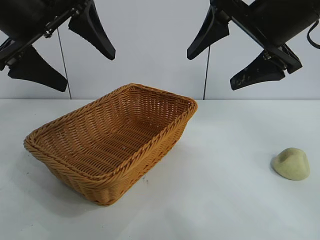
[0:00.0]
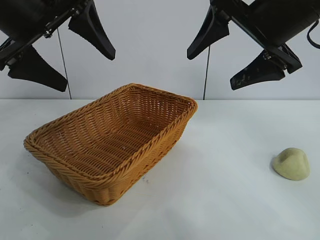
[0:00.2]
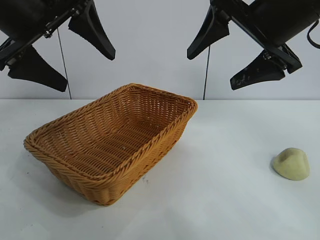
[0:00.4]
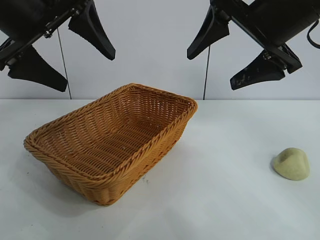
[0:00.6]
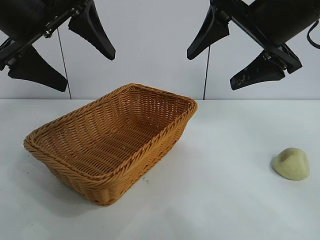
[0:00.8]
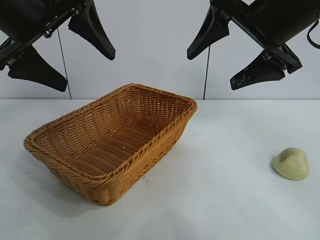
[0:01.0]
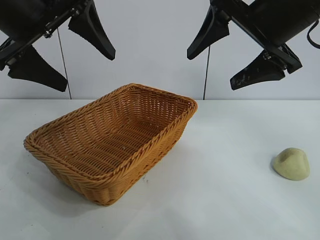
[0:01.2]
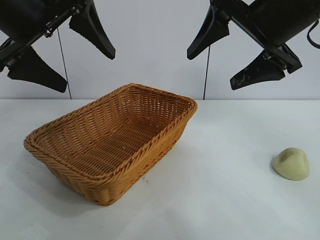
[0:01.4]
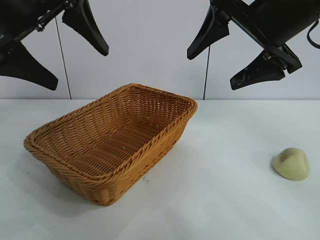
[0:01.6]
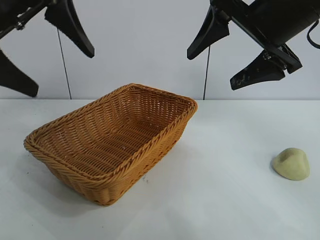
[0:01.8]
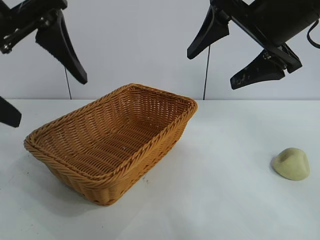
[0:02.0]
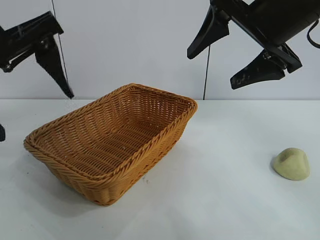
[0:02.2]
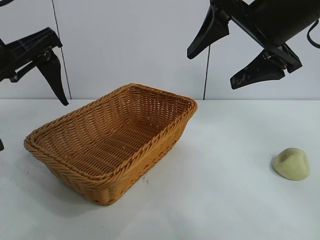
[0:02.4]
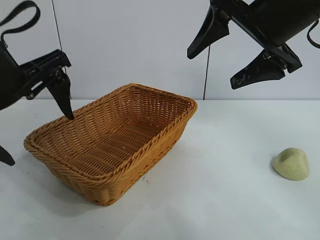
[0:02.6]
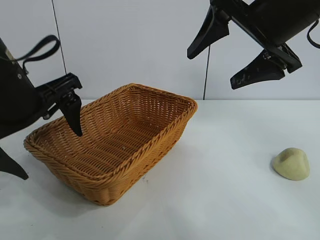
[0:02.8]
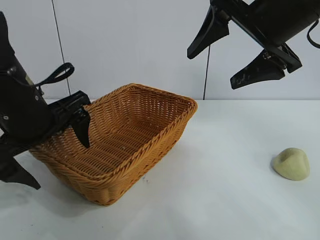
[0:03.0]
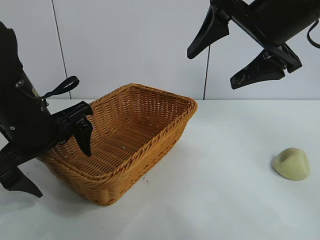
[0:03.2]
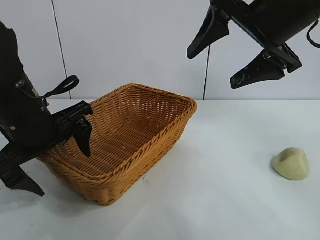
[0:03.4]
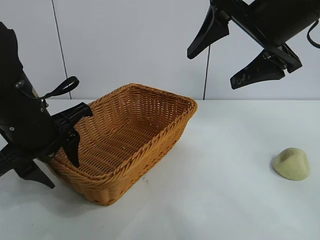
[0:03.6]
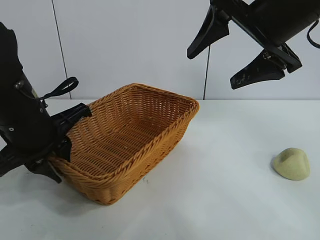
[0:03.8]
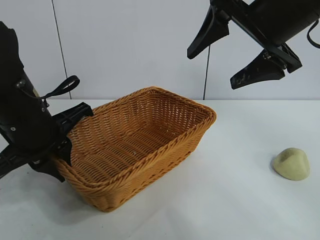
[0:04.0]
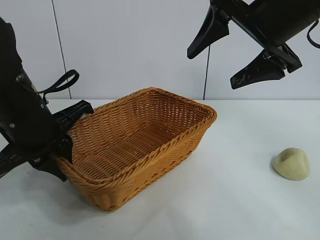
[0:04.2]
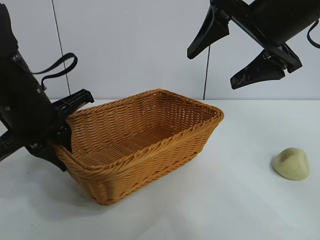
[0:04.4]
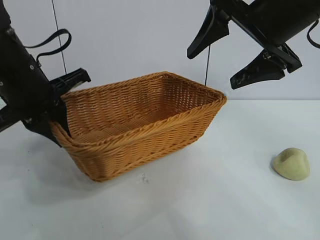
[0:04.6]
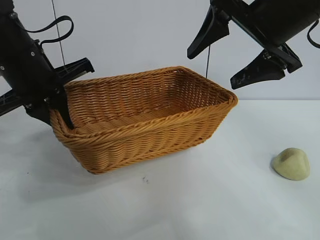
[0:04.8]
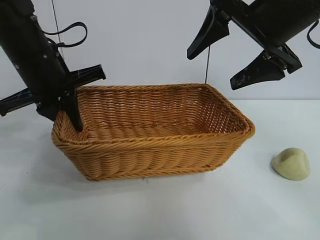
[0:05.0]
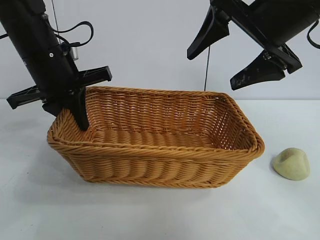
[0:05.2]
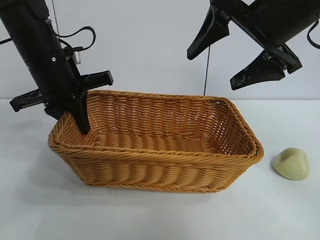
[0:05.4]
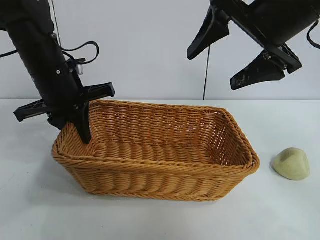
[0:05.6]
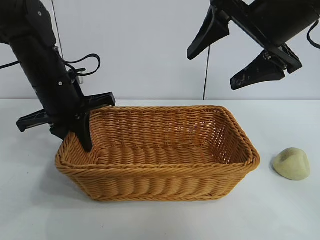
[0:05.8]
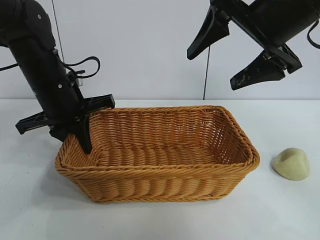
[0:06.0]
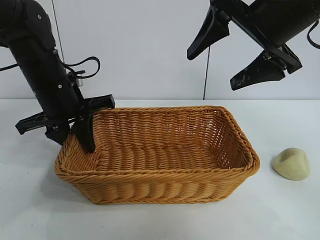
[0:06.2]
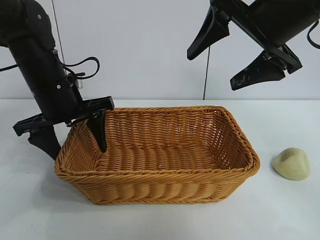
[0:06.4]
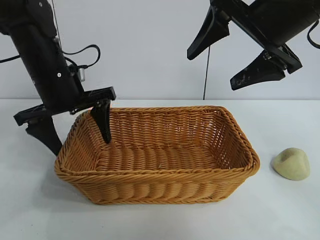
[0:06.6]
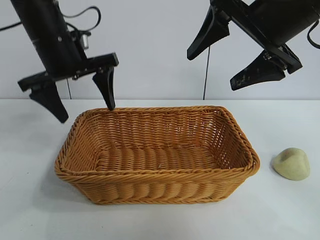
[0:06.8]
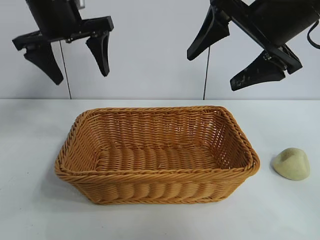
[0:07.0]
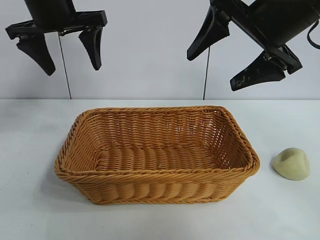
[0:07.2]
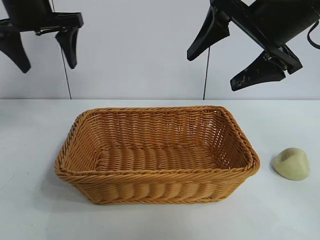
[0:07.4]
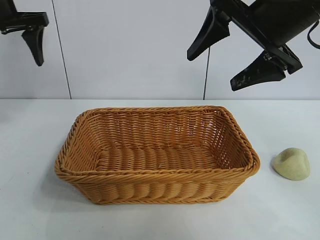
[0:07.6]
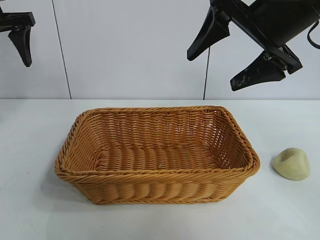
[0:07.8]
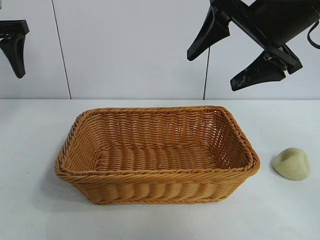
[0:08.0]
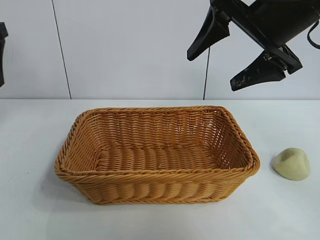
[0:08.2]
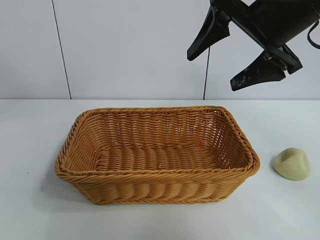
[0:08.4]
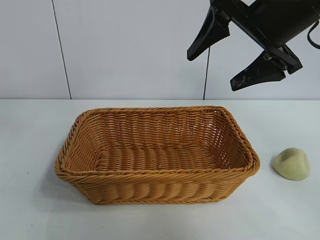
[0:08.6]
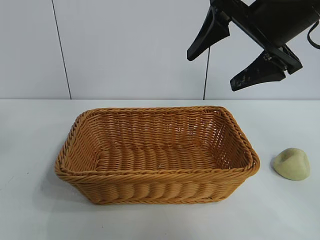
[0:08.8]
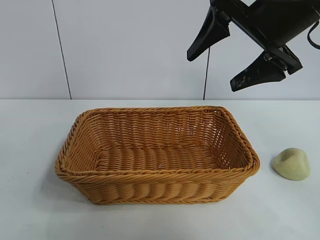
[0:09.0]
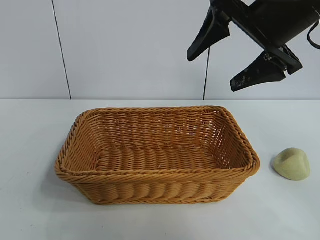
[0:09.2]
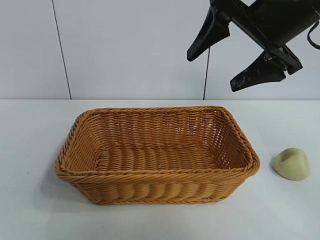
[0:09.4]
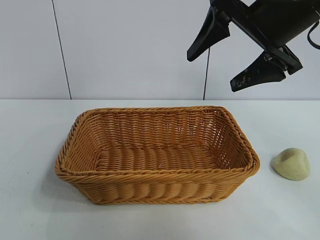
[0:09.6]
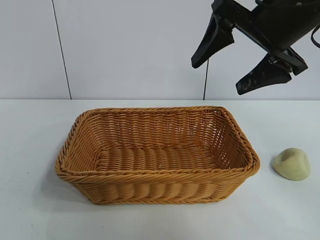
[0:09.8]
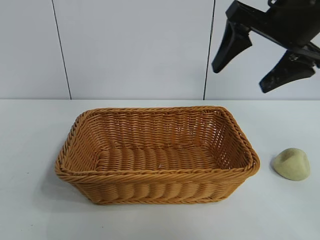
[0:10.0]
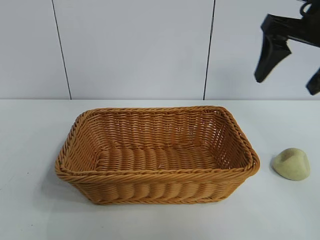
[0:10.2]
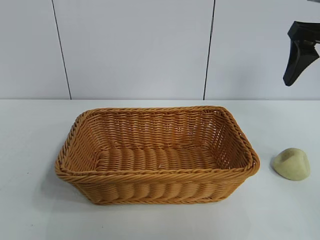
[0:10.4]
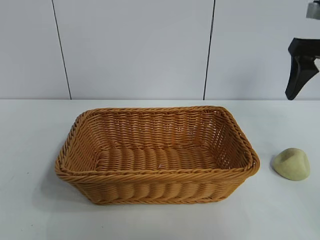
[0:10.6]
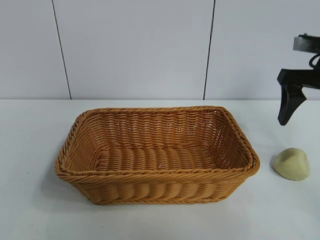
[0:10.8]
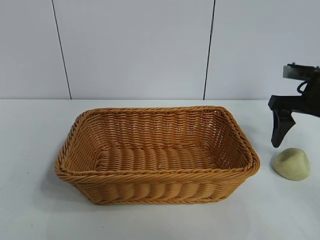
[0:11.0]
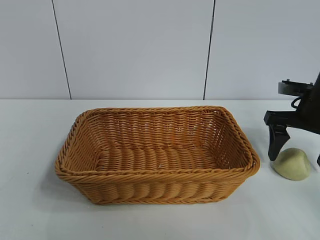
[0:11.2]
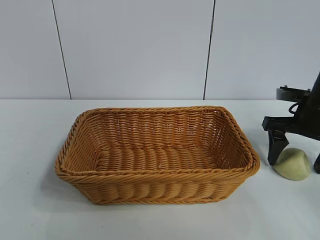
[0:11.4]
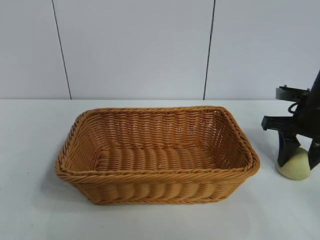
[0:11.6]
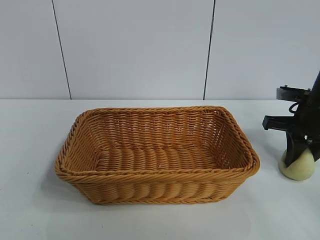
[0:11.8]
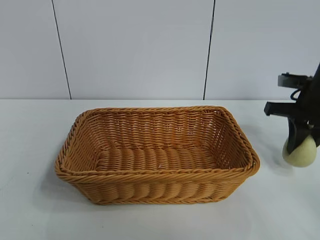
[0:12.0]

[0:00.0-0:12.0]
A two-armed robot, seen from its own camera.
Task of the whole recording: pick up the egg yolk pastry and put it into the basket.
Step, 0:01.4 to 0:03.8: Grasp the basket with left gripper.
Step, 0:04.2 to 0:06.4: Place the basket in the center of view with left gripper.
Step, 0:06.6 to 0:11.6: Grasp egg yolk pastry with right gripper.

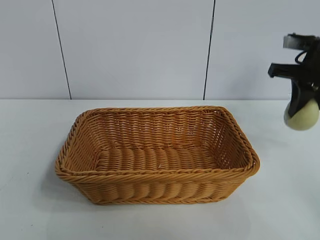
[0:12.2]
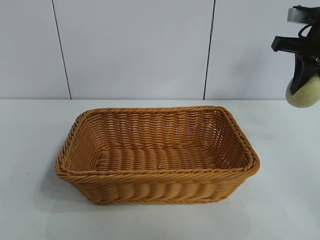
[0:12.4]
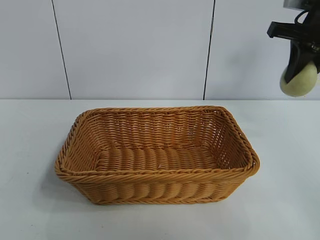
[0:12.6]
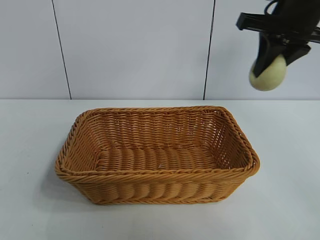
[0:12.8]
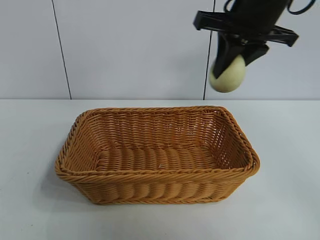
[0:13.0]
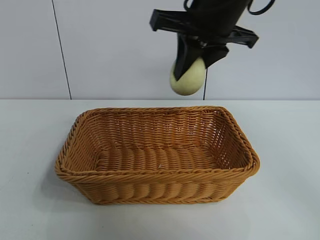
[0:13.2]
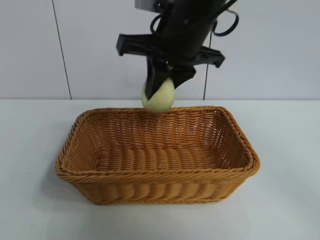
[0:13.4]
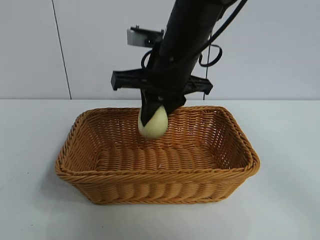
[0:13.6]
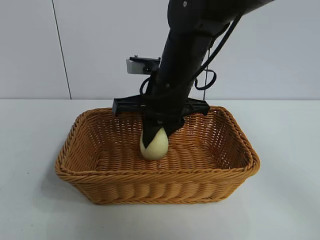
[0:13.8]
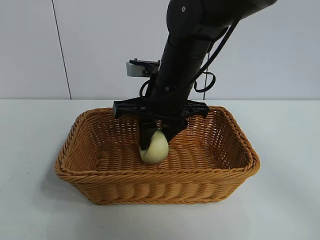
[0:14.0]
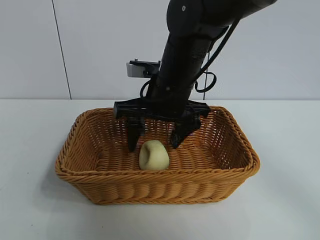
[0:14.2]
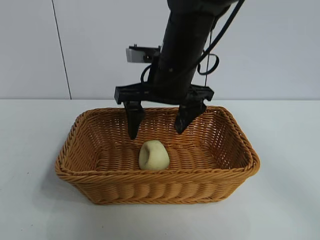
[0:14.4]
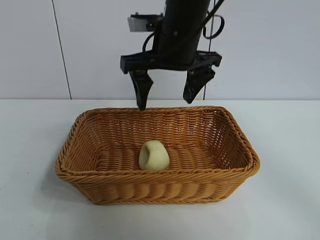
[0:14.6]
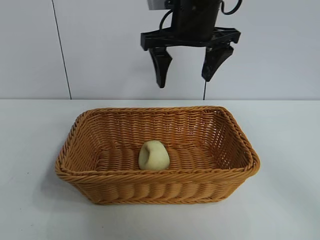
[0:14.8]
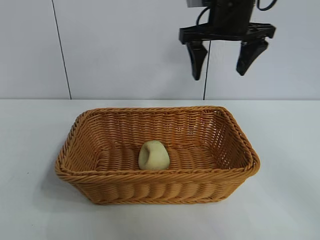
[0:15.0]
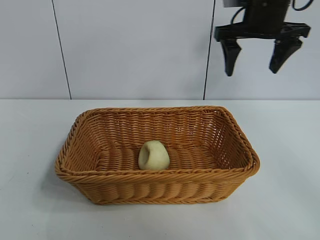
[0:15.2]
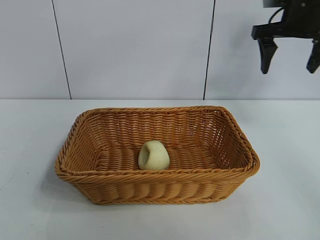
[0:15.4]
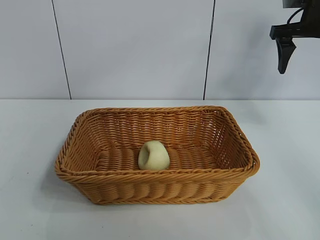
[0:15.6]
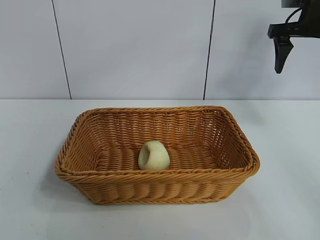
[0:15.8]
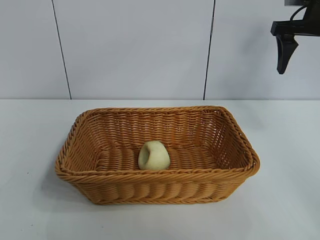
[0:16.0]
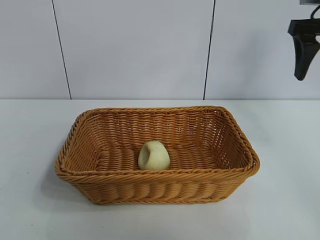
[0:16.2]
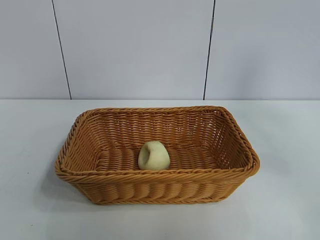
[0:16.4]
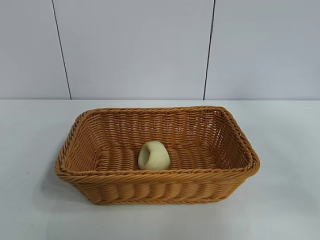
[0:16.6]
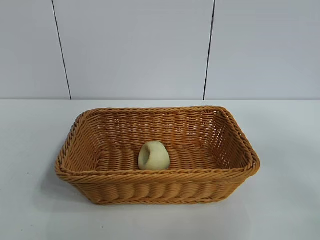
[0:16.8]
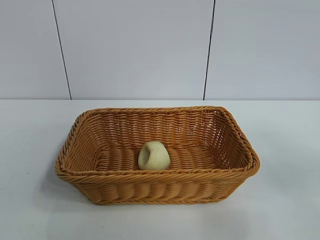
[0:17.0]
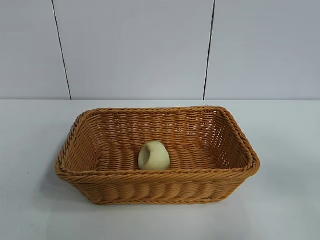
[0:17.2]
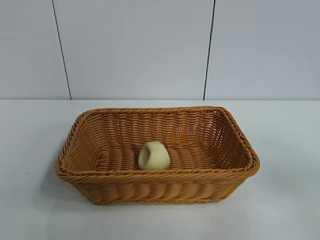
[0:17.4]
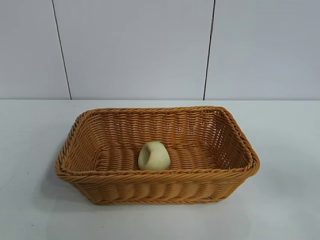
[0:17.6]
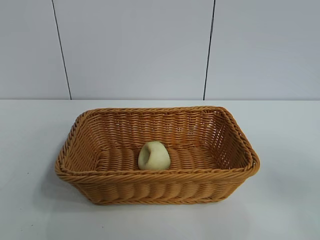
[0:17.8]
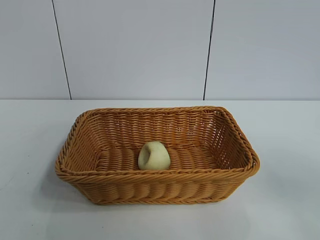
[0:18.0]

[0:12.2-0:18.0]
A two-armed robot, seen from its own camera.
Task of the whole recording: pick up the egg yolk pastry and put it into the basket.
Step, 0:12.2 to 0:14.2: Place the egg yolk pastry in the basket with right gripper.

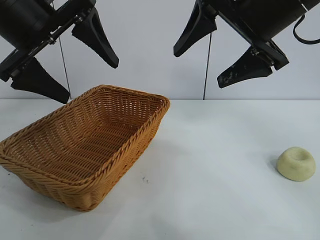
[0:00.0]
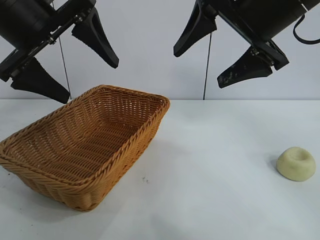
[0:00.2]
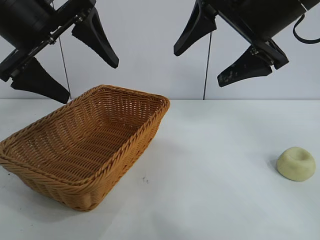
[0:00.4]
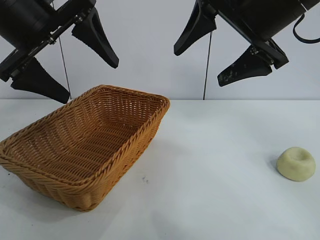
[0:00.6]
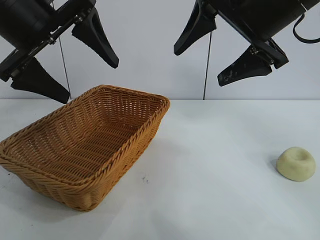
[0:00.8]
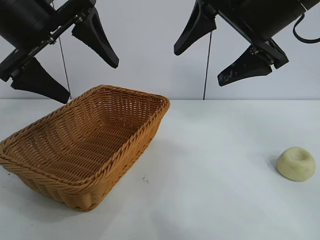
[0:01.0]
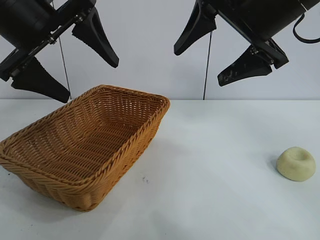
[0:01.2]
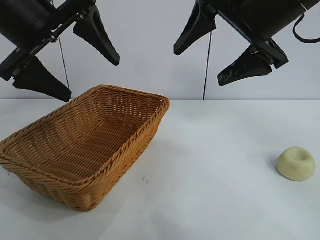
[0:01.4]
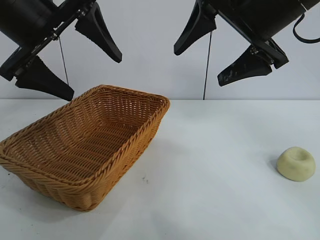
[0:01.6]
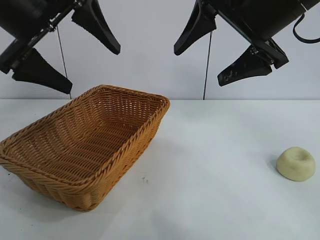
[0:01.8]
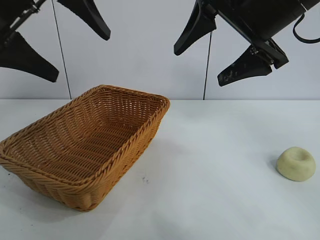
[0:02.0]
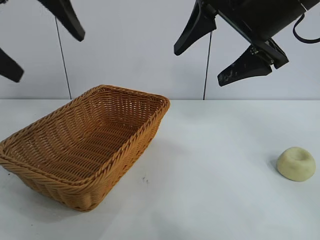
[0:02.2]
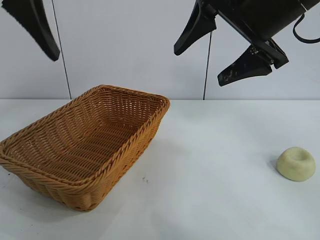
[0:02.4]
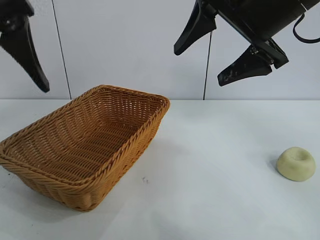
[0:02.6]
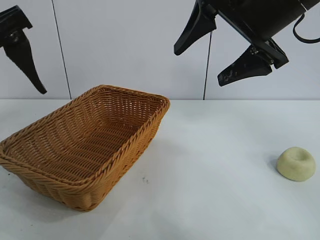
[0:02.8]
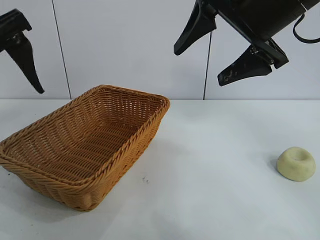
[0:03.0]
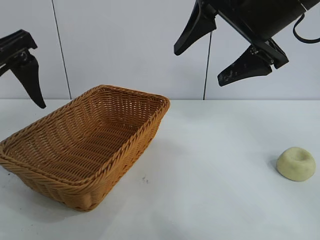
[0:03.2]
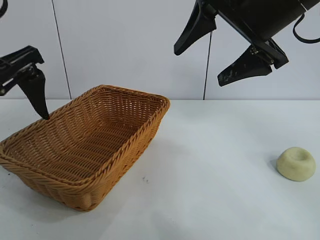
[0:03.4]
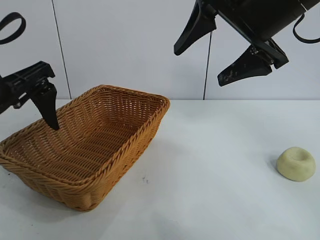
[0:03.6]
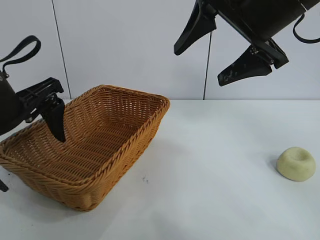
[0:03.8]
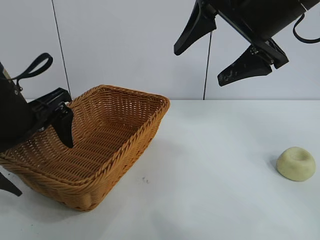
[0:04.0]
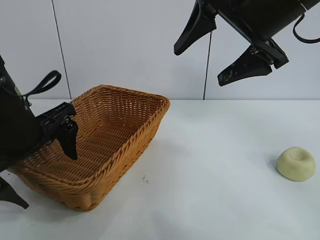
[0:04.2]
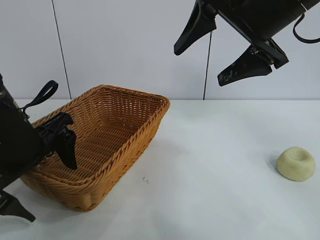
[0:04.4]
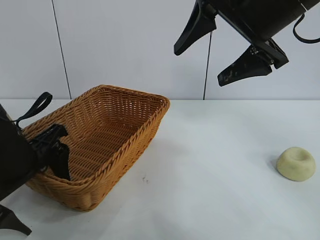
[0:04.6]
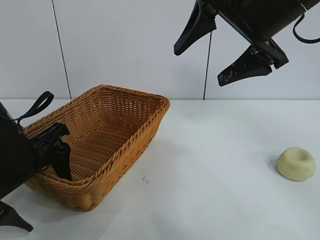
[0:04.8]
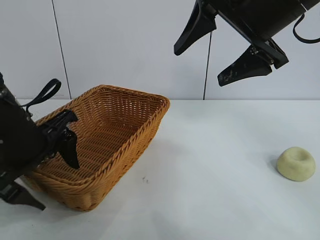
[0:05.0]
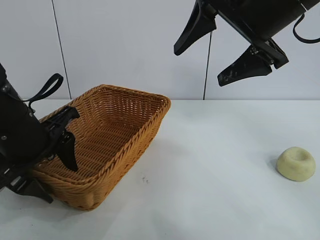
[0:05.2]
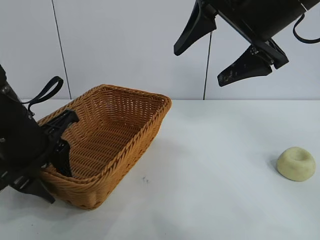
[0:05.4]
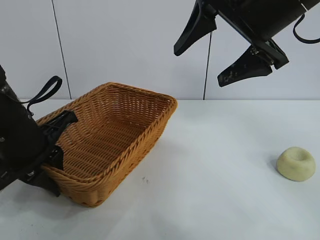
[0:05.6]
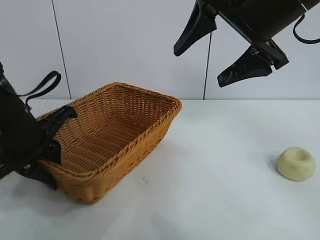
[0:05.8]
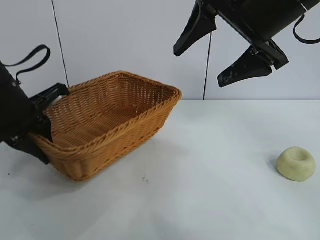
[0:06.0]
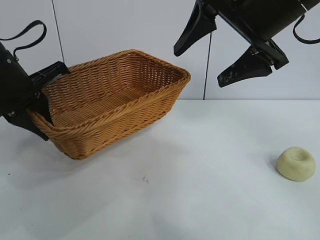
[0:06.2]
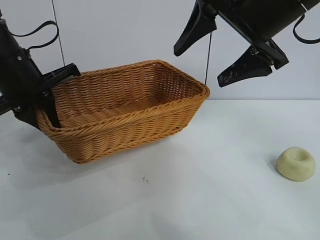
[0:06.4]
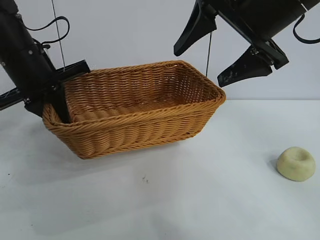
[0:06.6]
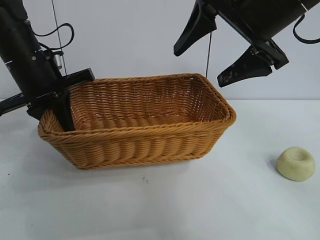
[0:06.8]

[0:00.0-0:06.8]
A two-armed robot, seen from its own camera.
Task of the whole recording: pick up the egg yolk pastry and put it into the basket.
Step, 0:00.0 to 0:05.4: Grasp the basket with left gripper.
